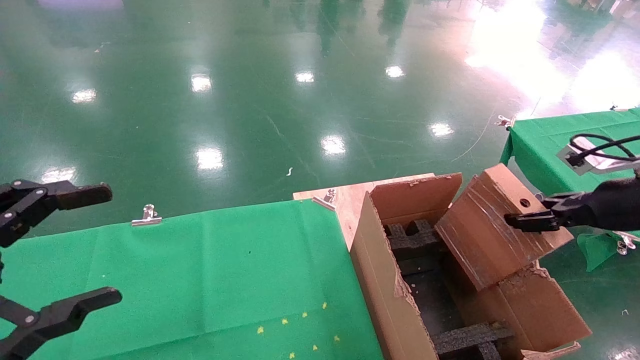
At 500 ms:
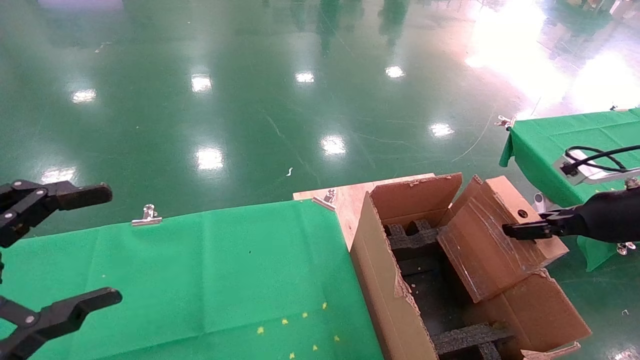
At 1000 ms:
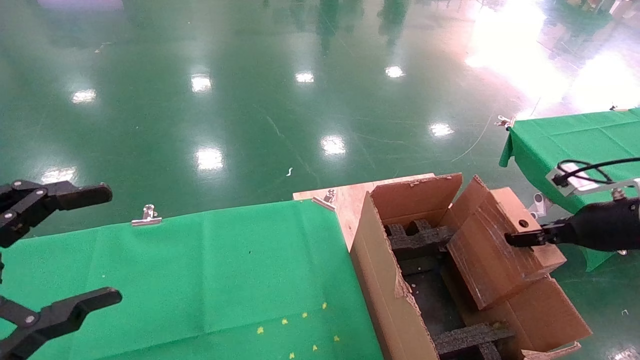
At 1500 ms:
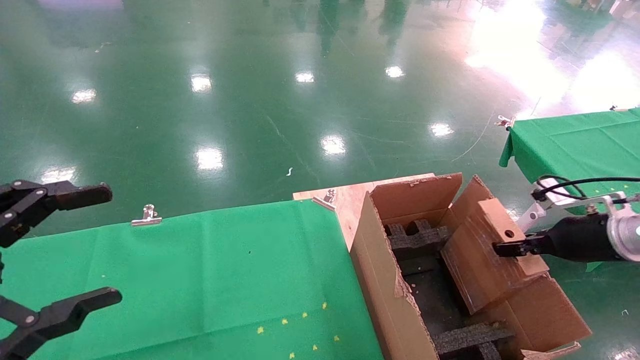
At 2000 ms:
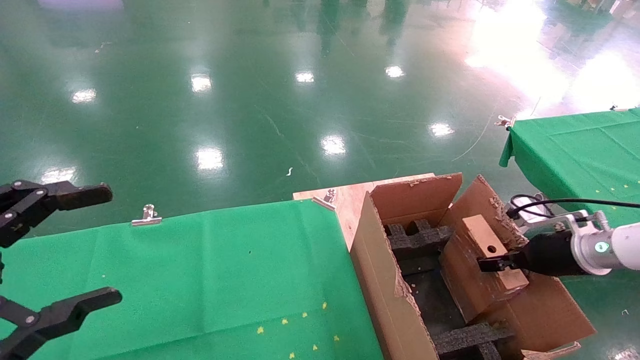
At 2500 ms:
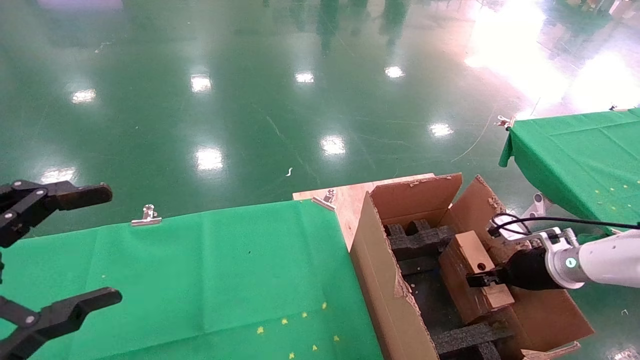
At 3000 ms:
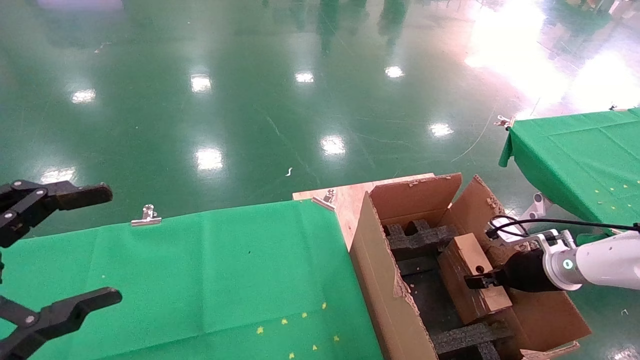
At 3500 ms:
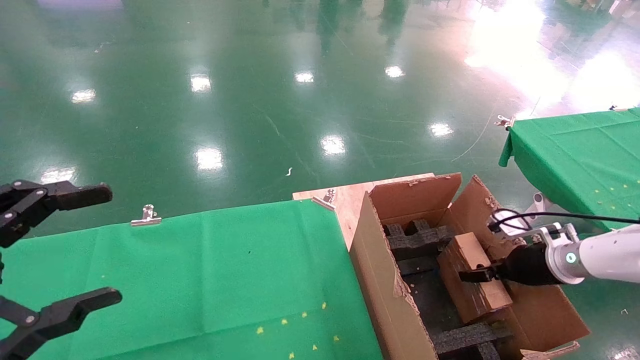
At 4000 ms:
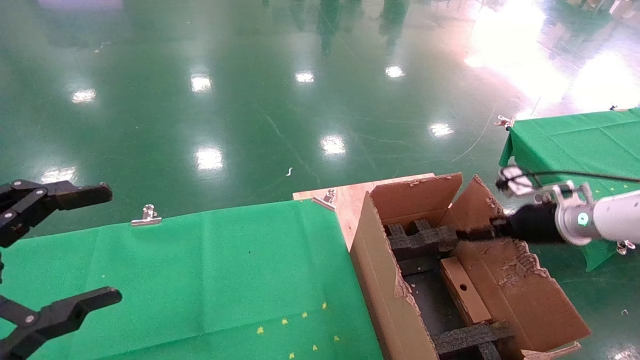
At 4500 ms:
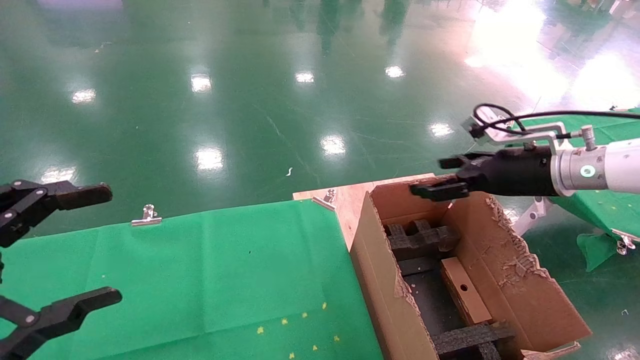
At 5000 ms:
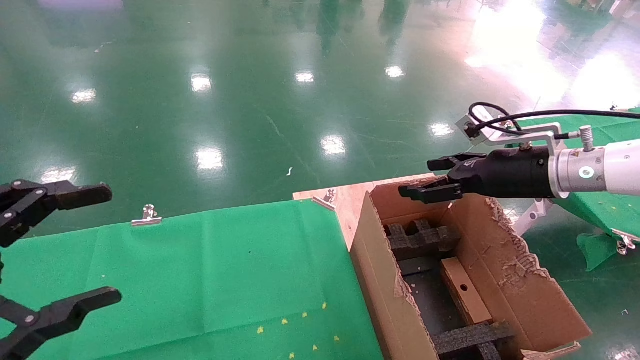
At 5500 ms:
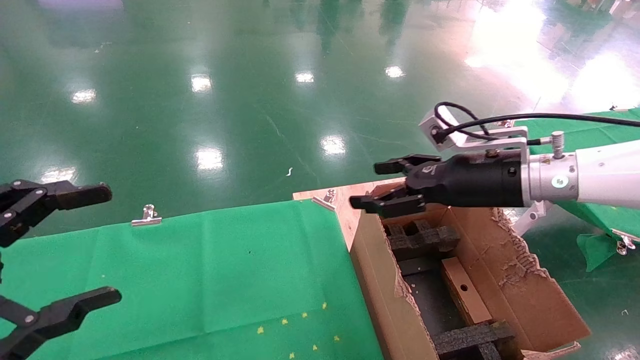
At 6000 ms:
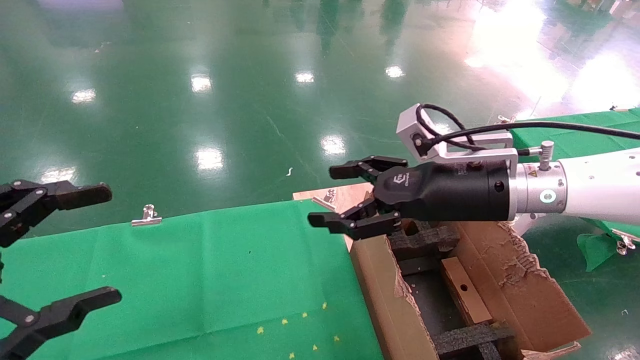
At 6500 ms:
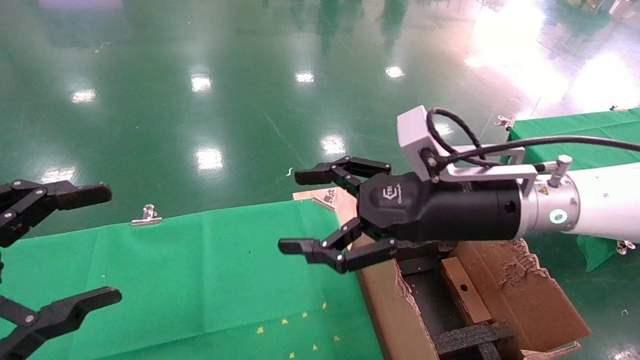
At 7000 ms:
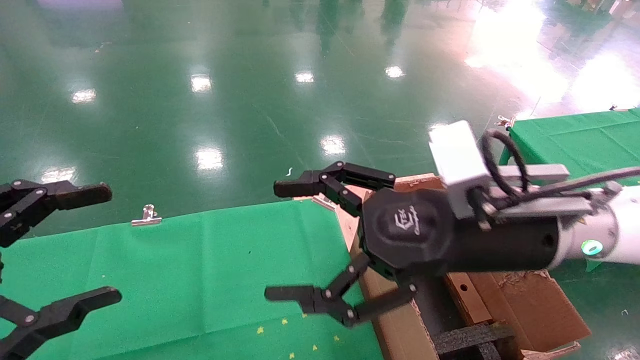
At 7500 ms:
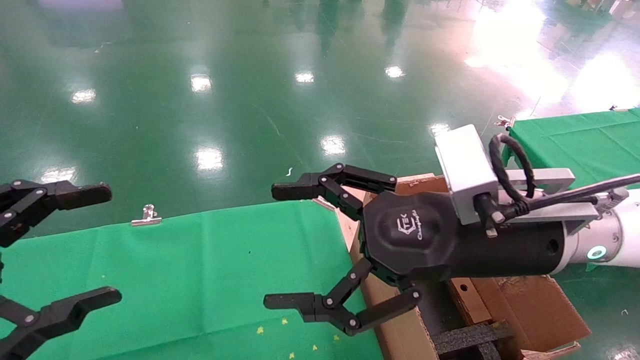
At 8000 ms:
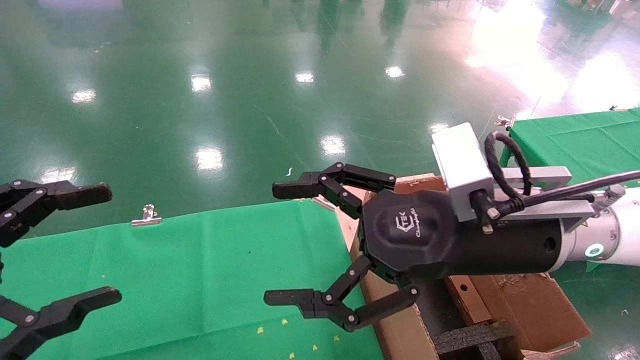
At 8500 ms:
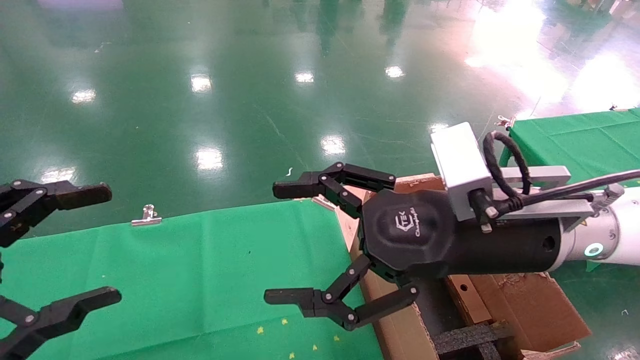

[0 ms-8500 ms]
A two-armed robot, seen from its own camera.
Task of the whole recording: using a robotic arm to pick up a cardboard box and palace it the carton.
Step, 0 ms to 4000 ms: Place the mouse and the power cord paper box into the container.
0 ms to 2000 ms: The right gripper travels downward and forward by approximately 15 cm.
2000 ms to 4000 ms: The right gripper moves approximately 5 cm, and opens.
4000 ms to 6500 ms: The right gripper travels to the left, backward and upward by some 30 cm.
6500 ms to 8500 ms: The grippers stay close to where they were, moving slightly.
